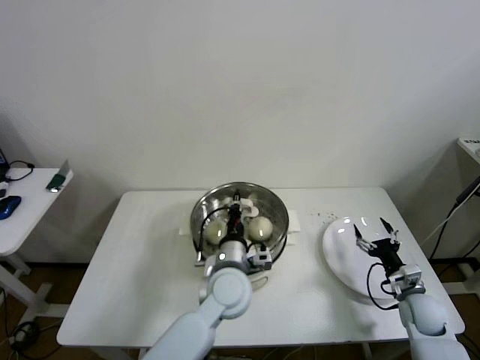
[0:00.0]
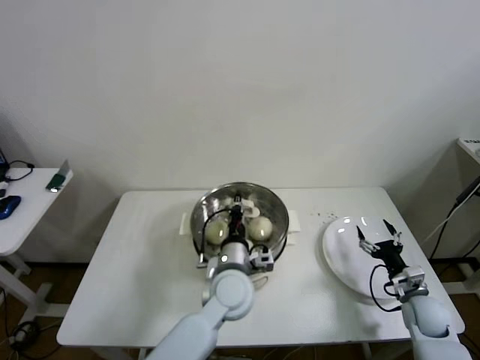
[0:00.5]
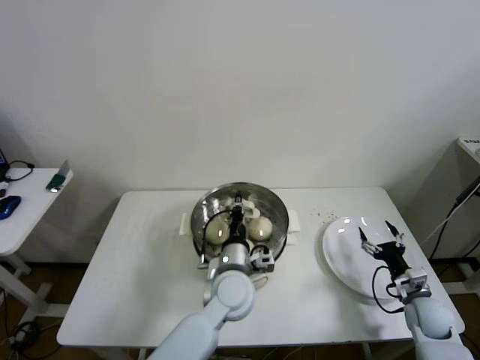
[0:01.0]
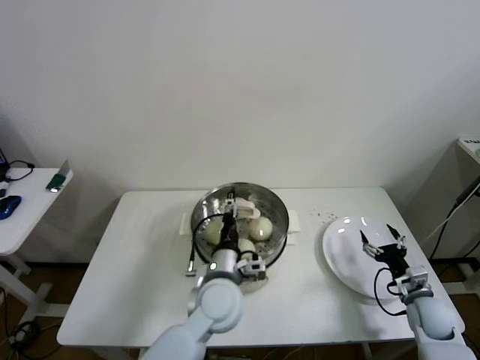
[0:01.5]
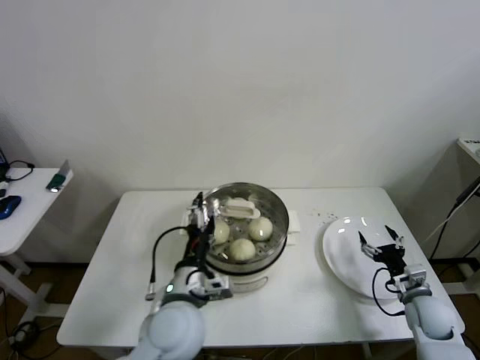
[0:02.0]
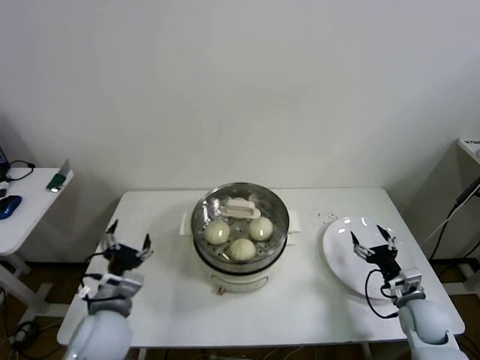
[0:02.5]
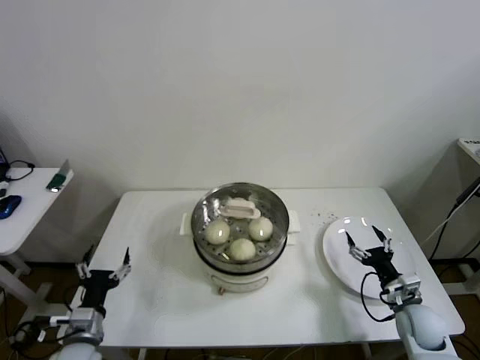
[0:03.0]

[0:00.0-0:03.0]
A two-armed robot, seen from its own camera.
Step, 0:00.0 to 0:02.0: Place the pot lid on the steamer with left gripper.
0:00.0 to 0:01.5: The left gripper opens its fingers.
0:01.5 to 0:03.0: The left gripper travels to the left by about 30 cm, and opens.

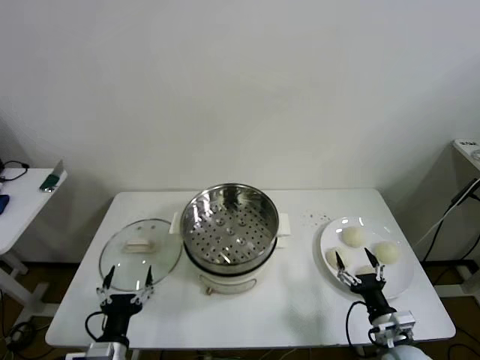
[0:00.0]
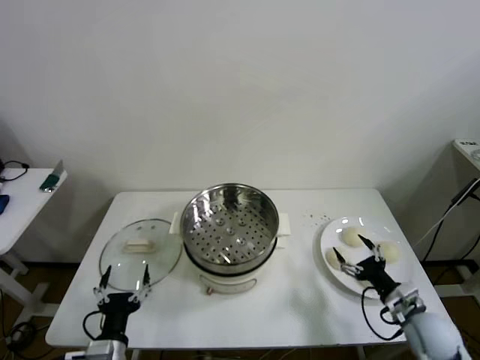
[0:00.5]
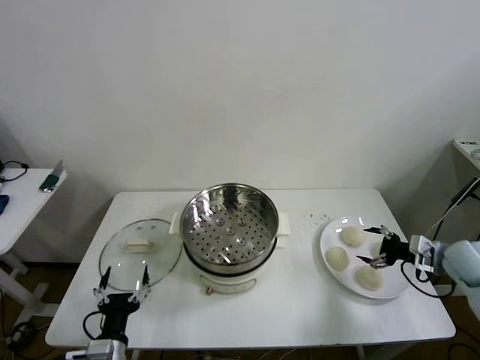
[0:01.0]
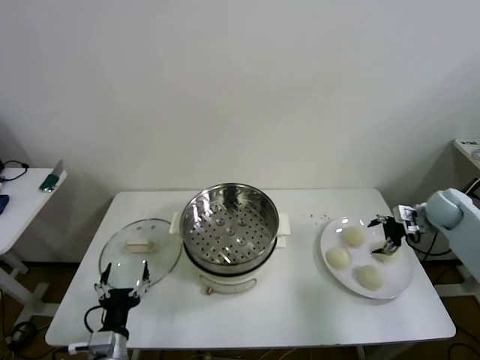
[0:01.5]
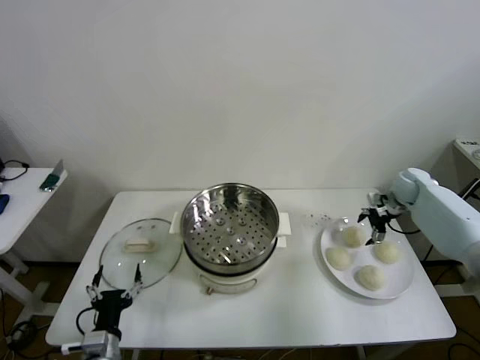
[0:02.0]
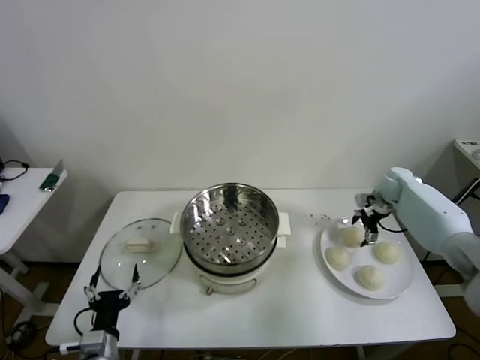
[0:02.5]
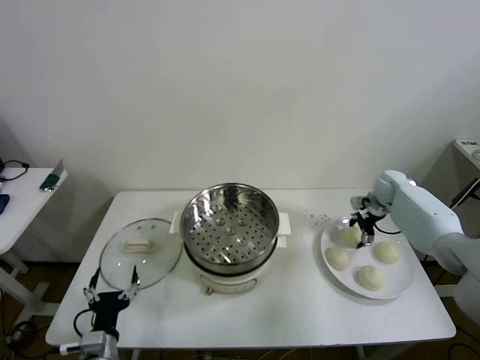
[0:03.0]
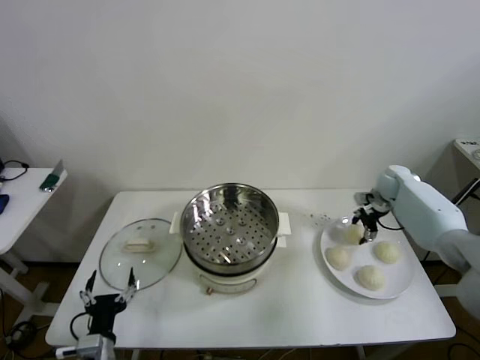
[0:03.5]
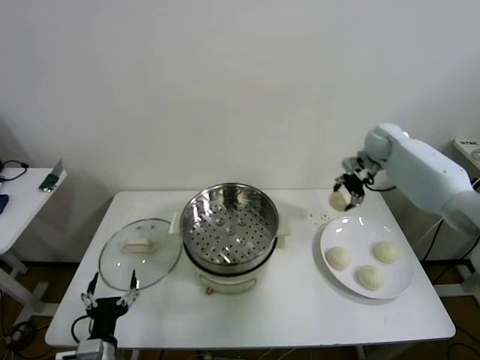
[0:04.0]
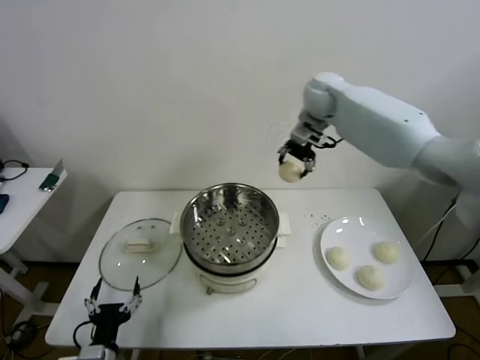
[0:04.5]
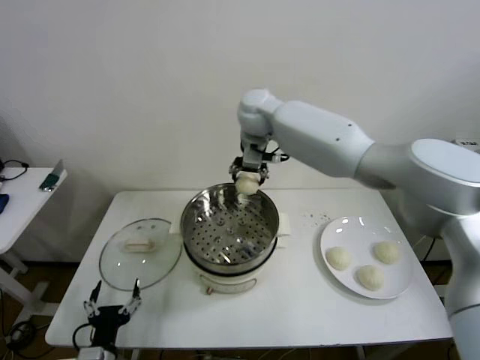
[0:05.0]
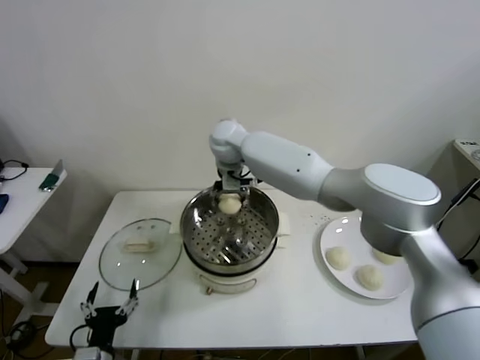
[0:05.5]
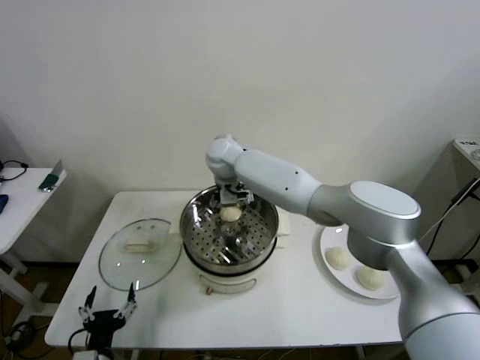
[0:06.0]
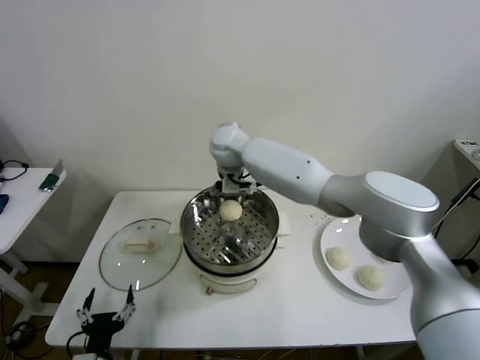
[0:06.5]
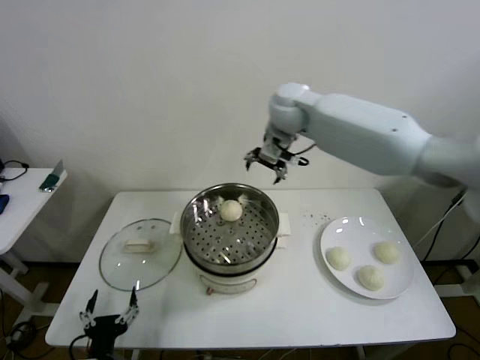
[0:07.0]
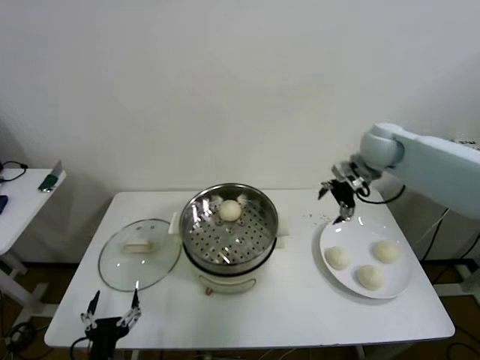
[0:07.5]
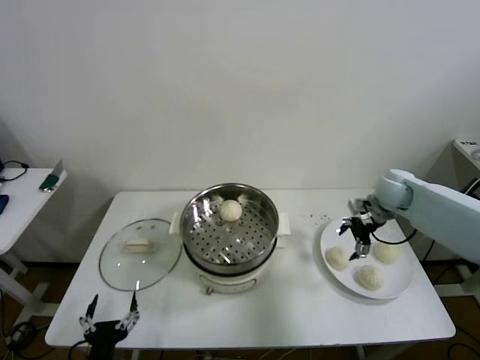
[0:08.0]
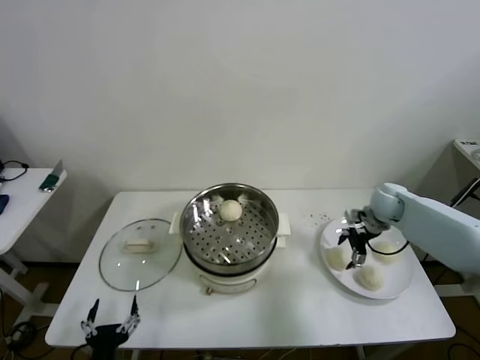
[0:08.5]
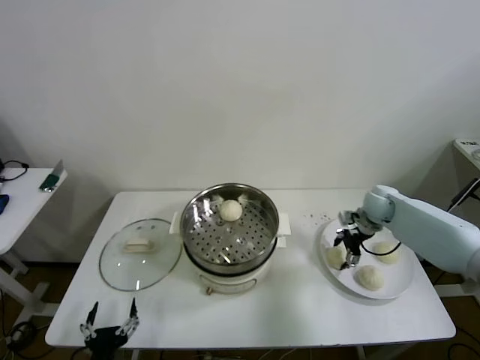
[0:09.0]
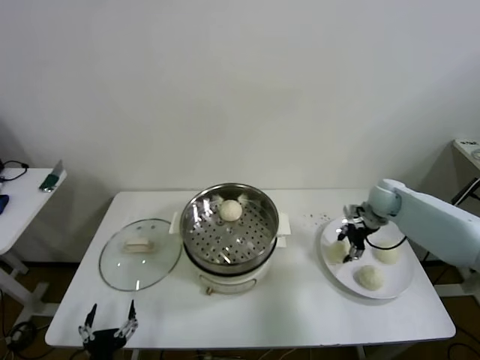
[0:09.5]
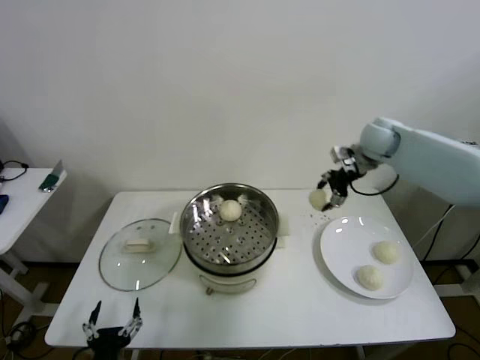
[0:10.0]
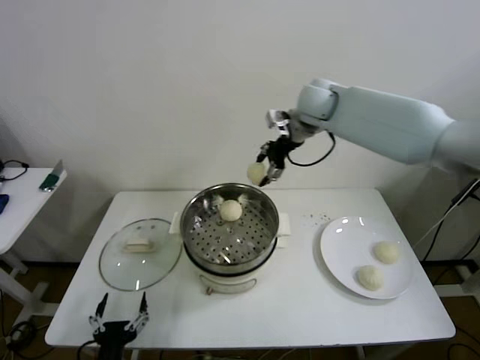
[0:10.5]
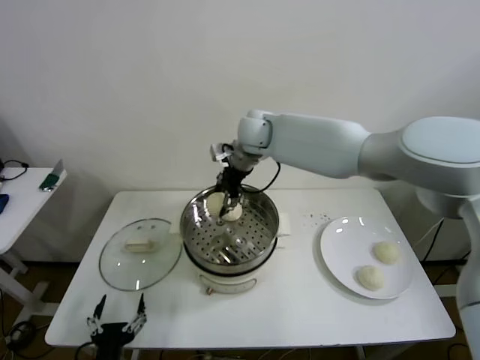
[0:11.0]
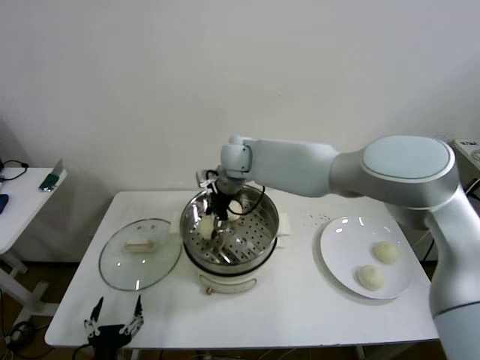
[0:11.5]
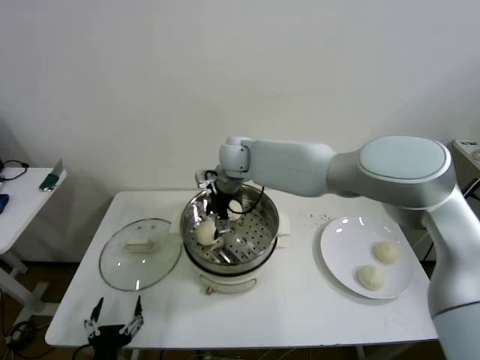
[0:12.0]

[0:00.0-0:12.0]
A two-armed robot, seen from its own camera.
Step, 0:00.0 to 0:03.5: Grasp the baozi in the plate with right gripper.
Step, 0:04.0 to 0:06.5: Place the baozi on the steamer with right gripper.
Step, 0:07.0 to 0:09.0: Grasp the baozi in the plate with right gripper.
0:02.0 to 0:04.0: The right gripper shifts about 20 cm upward and to the left, and closes its fingers.
0:04.0 to 0:06.0: The right gripper moves to the left, roughly 40 cm, and opens its fingers.
0:06.0 to 0:08.0: The right gripper shifts about 40 cm to the right.
0:08.0 to 0:10.0: The right gripper shifts approximately 20 cm upward, to the left and forward, and closes.
0:10.0 to 0:12.0: The right gripper heads to the left, covering roughly 30 cm, and opens up.

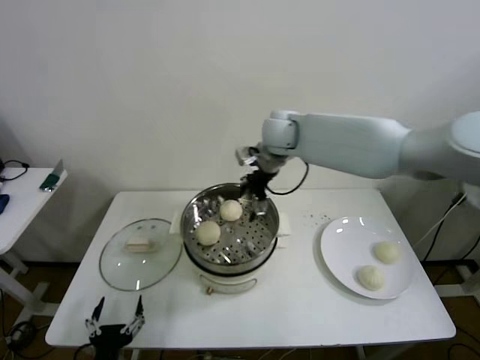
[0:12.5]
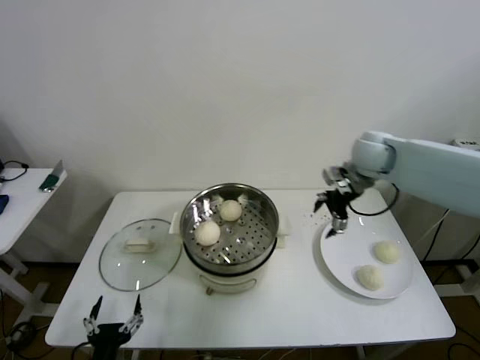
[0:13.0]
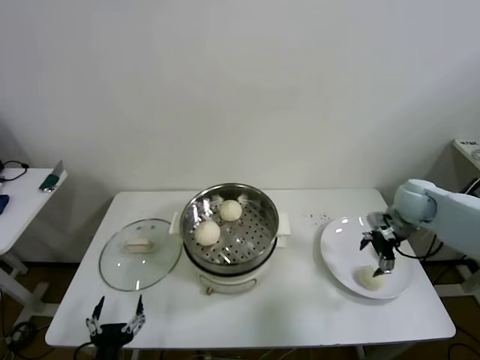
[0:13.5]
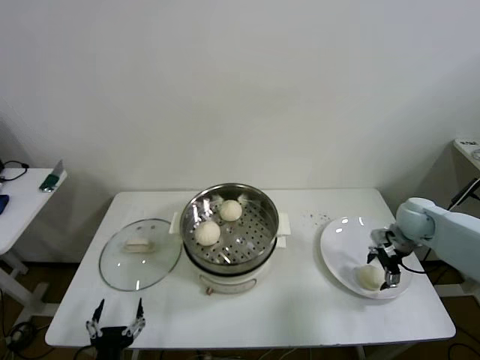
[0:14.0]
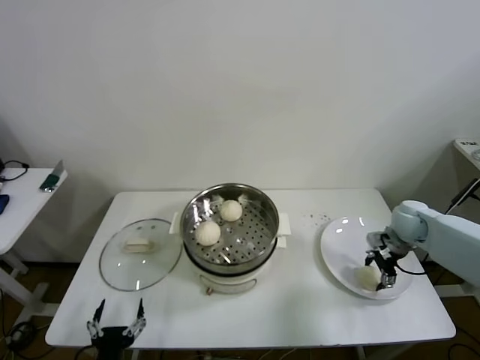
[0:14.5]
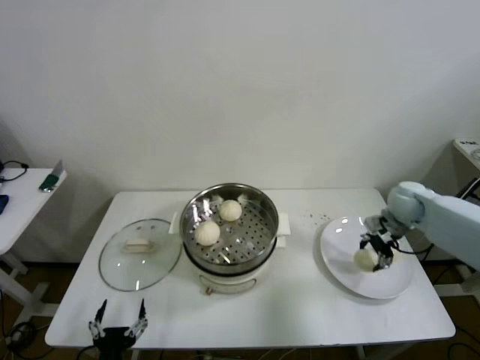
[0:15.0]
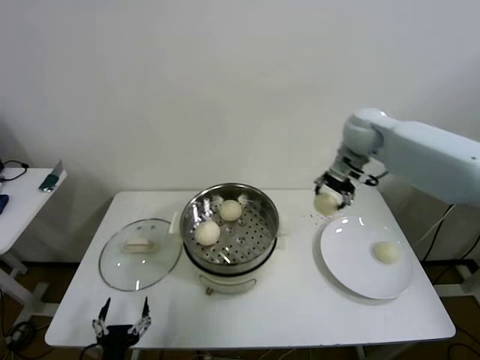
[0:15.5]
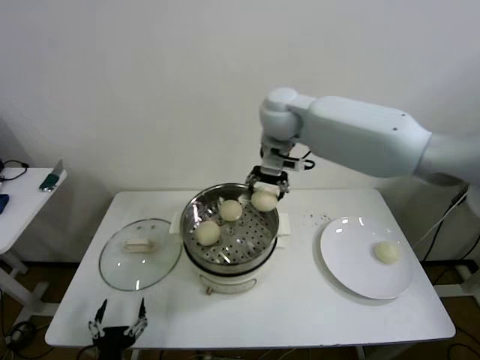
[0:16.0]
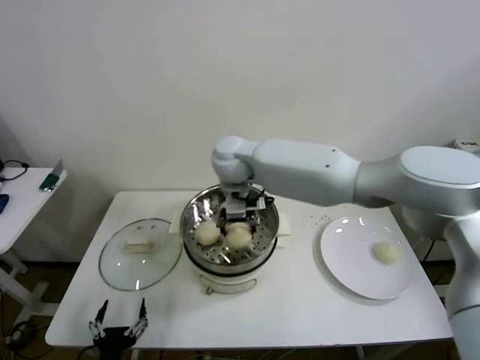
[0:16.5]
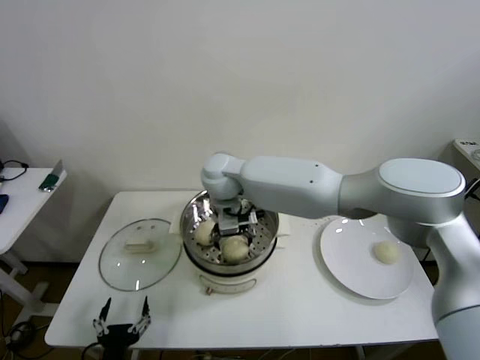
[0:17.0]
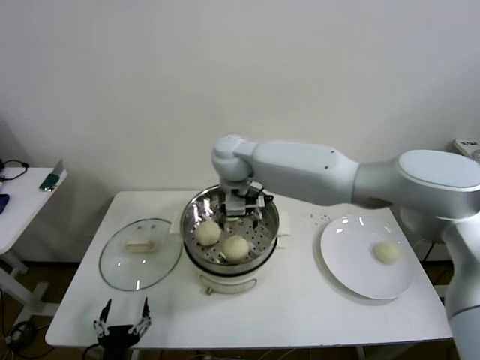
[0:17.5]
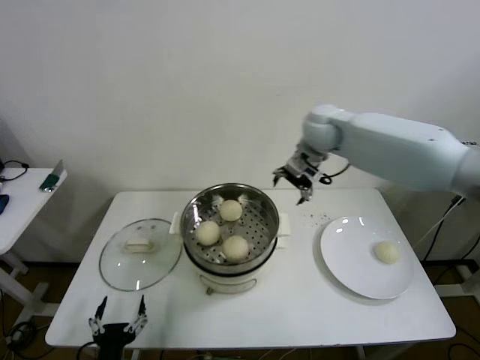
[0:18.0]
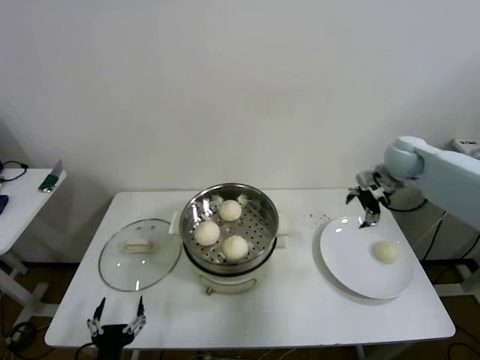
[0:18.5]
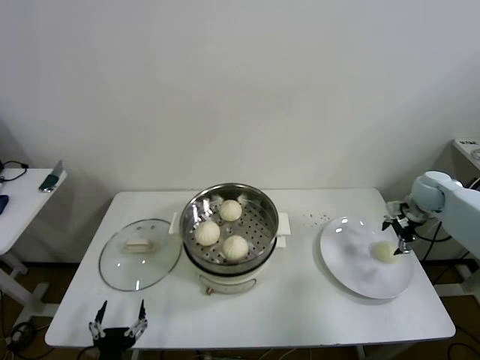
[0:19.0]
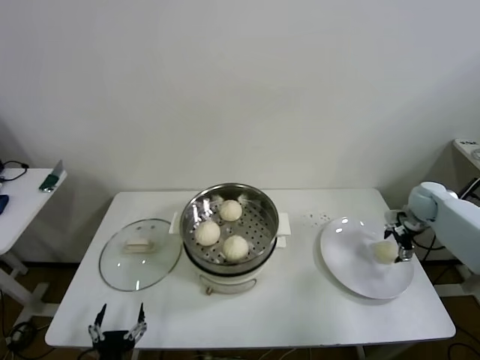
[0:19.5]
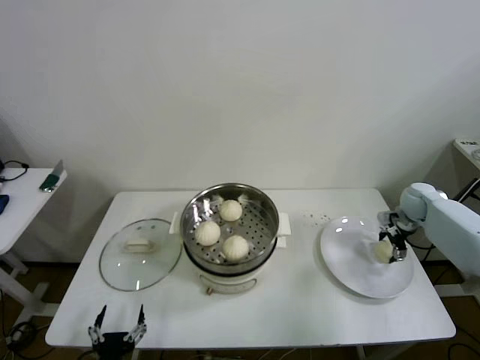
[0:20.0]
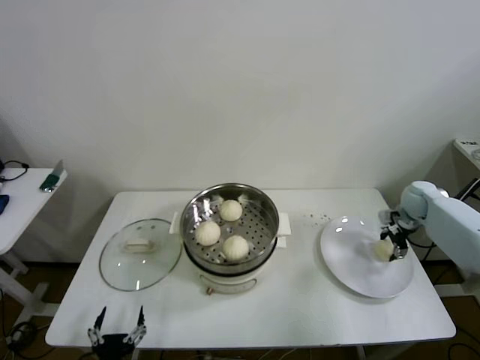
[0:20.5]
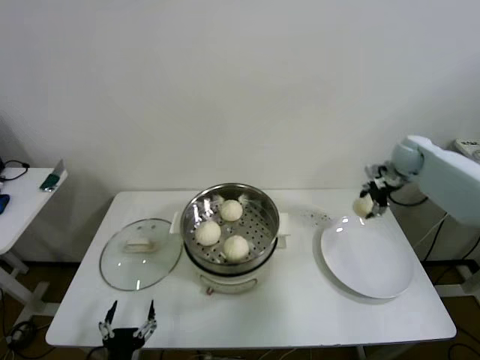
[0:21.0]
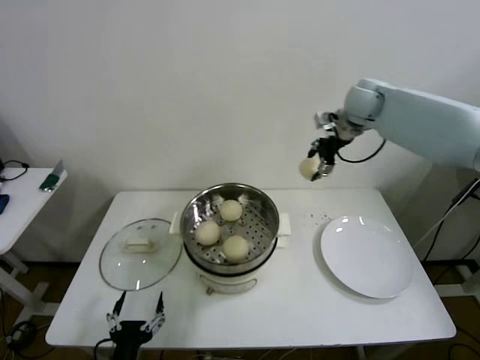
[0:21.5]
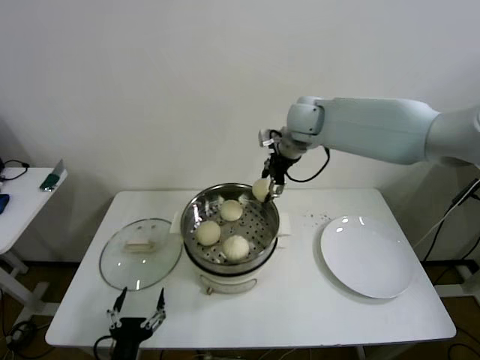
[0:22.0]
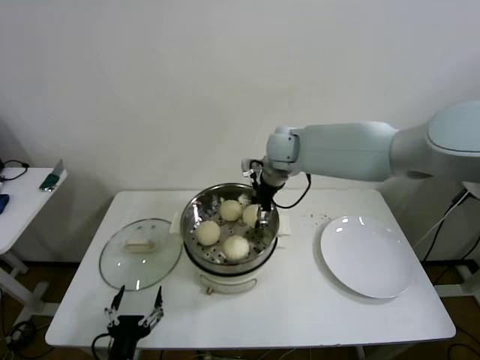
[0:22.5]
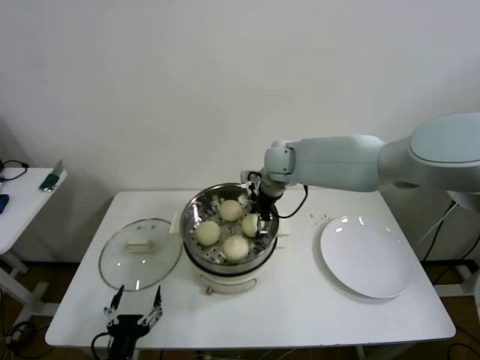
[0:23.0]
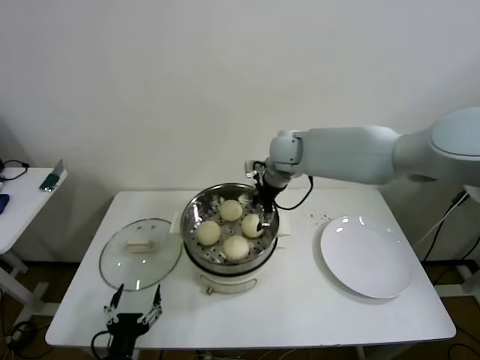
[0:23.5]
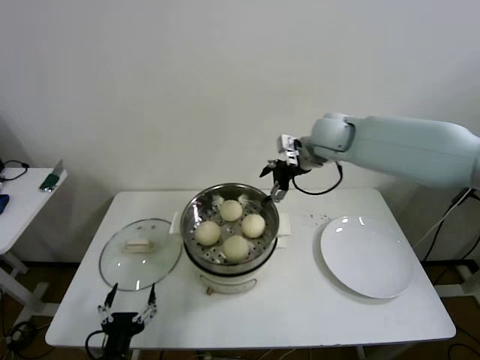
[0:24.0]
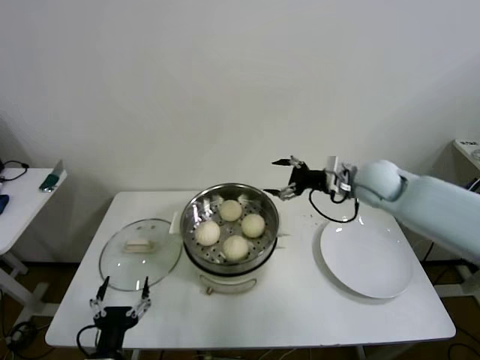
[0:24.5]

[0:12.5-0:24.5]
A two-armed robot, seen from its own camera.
Step, 0:12.5 to 0:14.5: Grasp the baozi in the plate with right gripper.
Step, 0:15.0 to 0:17.5: Place the baozi on the steamer with right gripper.
Step, 0:18.0 to 0:20.5: Grasp the baozi in the plate with right gripper.
Step, 0:21.0 to 0:23.5: Place the baozi on the steamer with right gripper.
0:12.5 to 0:14.5: The right gripper goes approximately 35 cm to the right and downward, and closes its fingers.
0:14.5 to 0:16.5: The right gripper shifts about 40 cm to the left.
0:16.5 to 0:18.5: The right gripper shifts some 40 cm to the right, and opens.
0:18.5 to 0:20.5: The right gripper is displaced downward and to the right by some 15 cm, and closes up.
0:20.5 to 0:22.5: The right gripper heads to the left and upward, covering approximately 40 cm.
0:22.5 to 0:24.5: The right gripper travels to the right and backward by about 20 cm, and opens.
